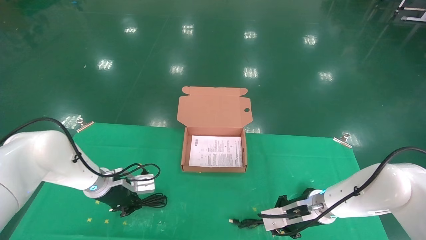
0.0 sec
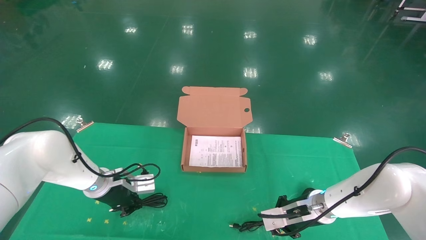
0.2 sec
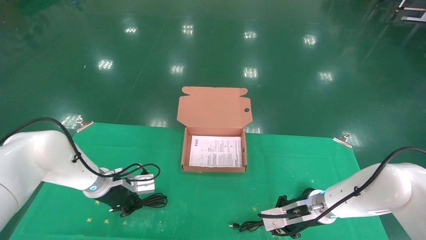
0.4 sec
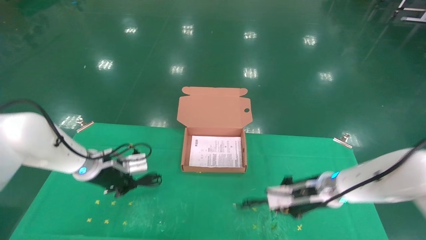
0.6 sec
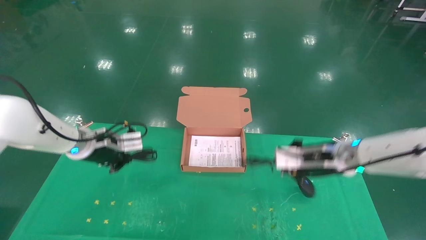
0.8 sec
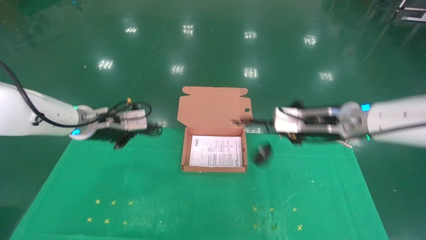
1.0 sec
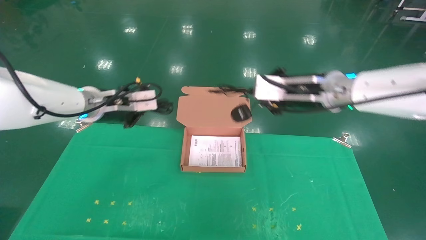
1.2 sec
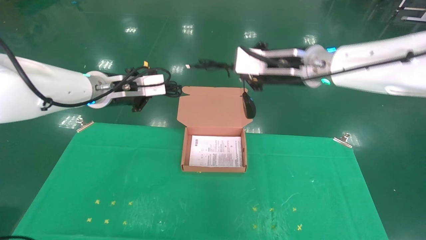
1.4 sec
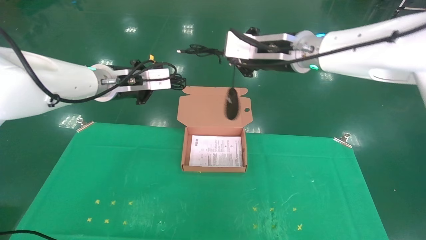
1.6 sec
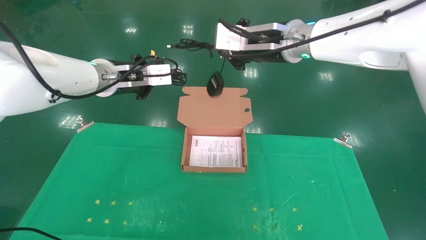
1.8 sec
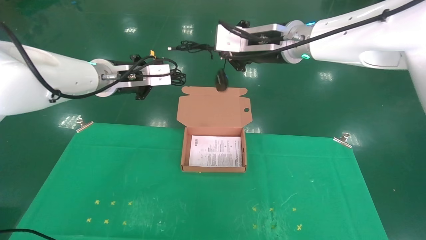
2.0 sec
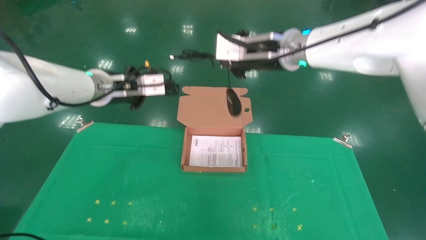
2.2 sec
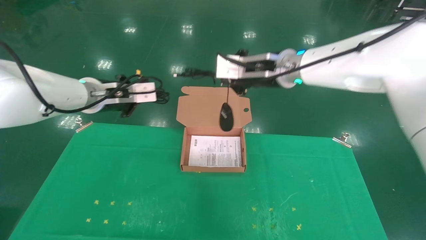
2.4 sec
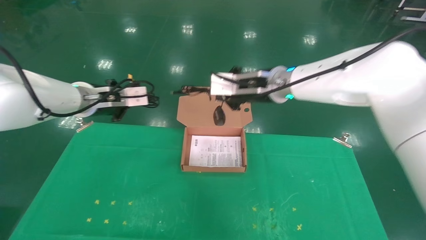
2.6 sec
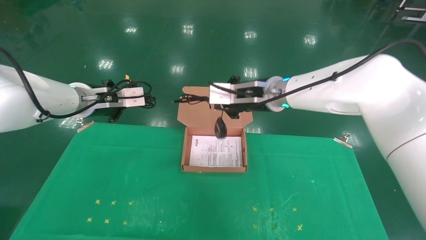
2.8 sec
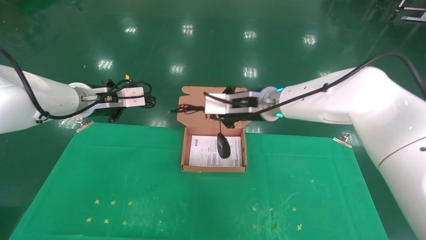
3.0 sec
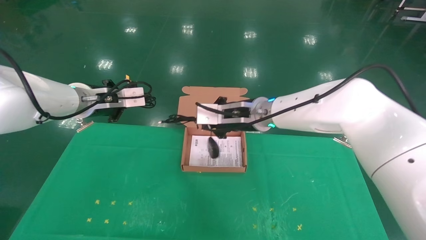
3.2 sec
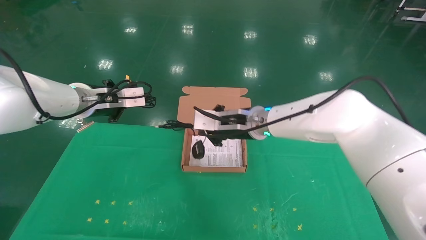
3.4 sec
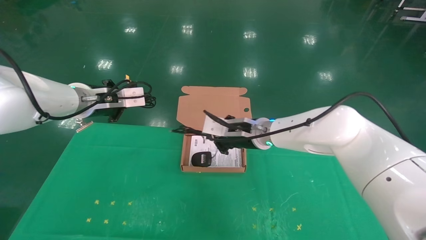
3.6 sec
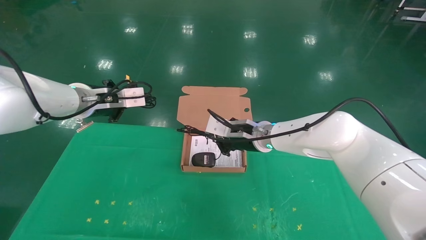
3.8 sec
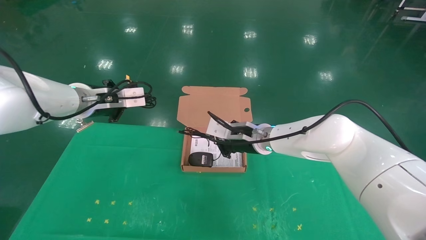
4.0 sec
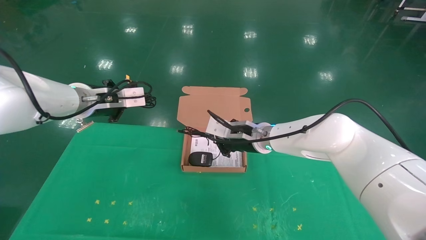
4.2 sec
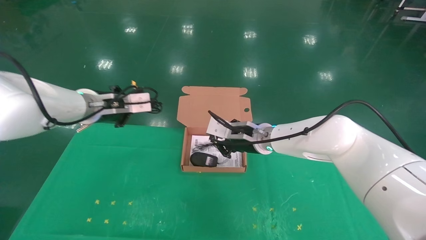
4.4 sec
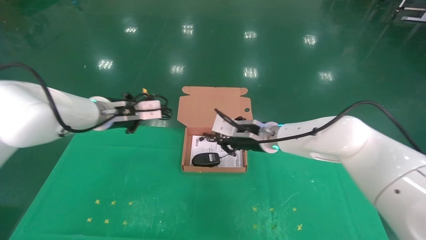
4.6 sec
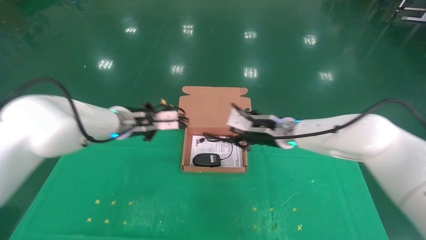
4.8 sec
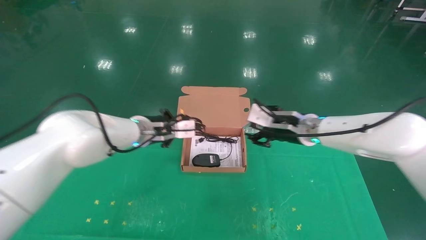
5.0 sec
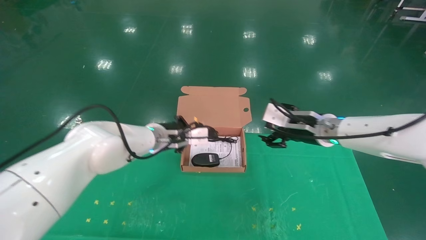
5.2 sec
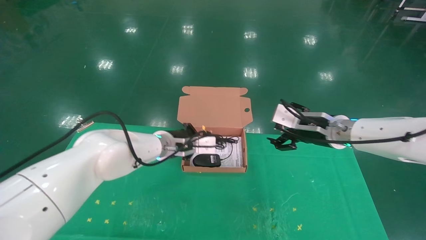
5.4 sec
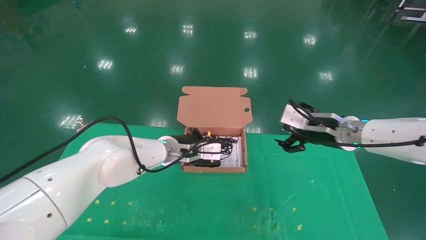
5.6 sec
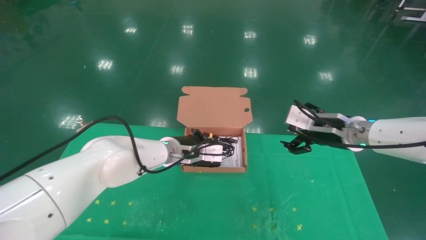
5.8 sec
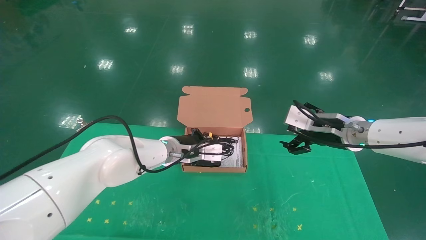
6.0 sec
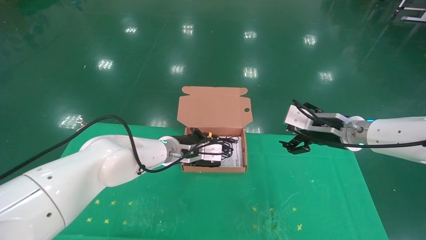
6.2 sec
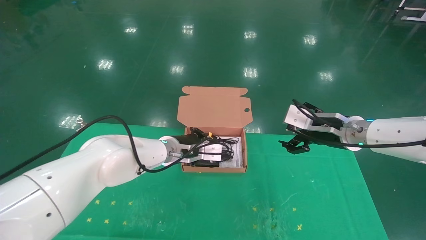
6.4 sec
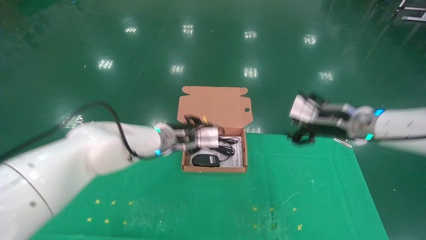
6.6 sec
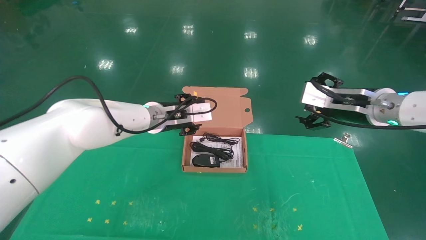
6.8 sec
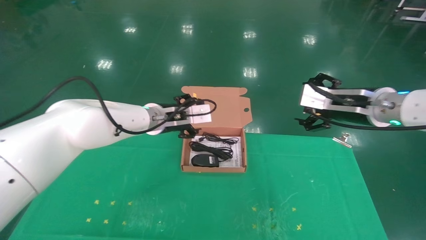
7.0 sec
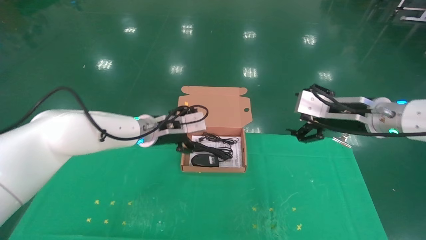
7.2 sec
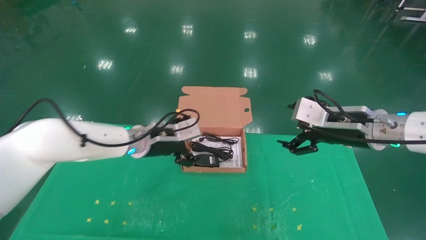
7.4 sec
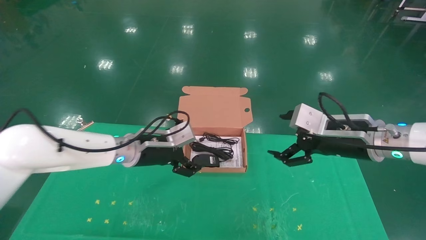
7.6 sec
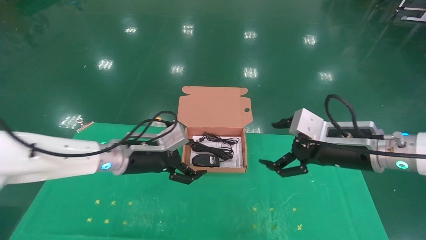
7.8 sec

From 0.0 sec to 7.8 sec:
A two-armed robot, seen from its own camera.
Task of the whole recording: grasp data cable left put into box grasp mouse right put into box.
Step, from 0.6 sec to 6.8 sec: Place the mouse and power cord into the box.
From 0.0 sec to 1.6 sec: The grippers both shift upward by roughly 30 cm.
From 1.6 sec to 3.2 sec: The left gripper ends up some 5 cm from where it was. The right gripper moves downward and to the left, approximately 15 cm.
From 3.2 sec to 4.6 sec: The left gripper moves some 5 cm. The right gripper moves downward, roughly 5 cm.
From 4.6 sec to 6.2 sec: The right gripper is displaced to the right by approximately 15 cm, and opens its fingers. The left gripper moves to the right and downward, about 15 cm.
From 6.2 sec to 7.8 sec: The left gripper heads to the left and backward, covering roughly 10 cm, and opens up. Meanwhile the right gripper goes roughly 10 cm backward.
